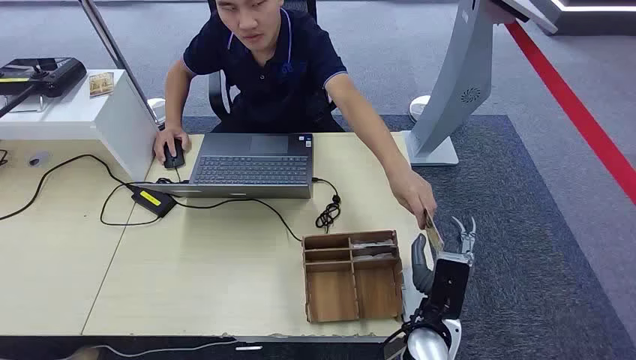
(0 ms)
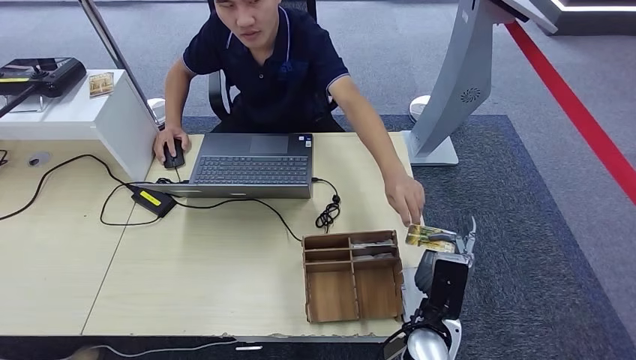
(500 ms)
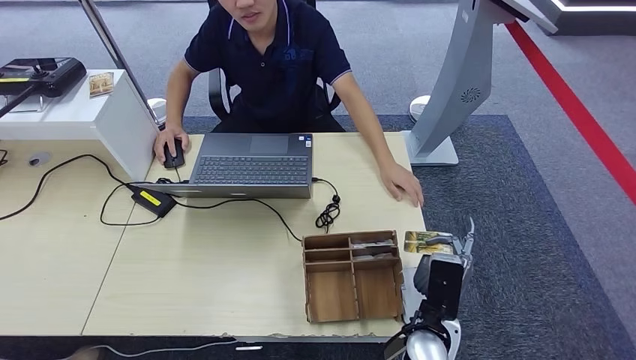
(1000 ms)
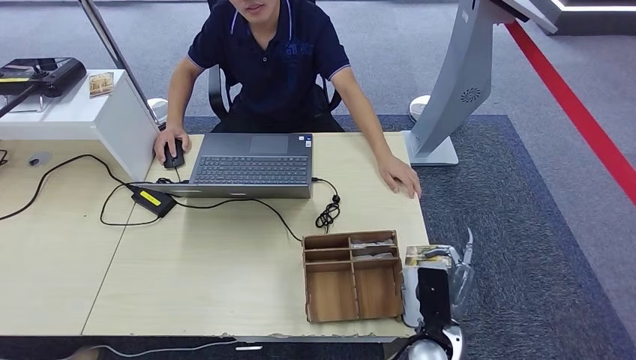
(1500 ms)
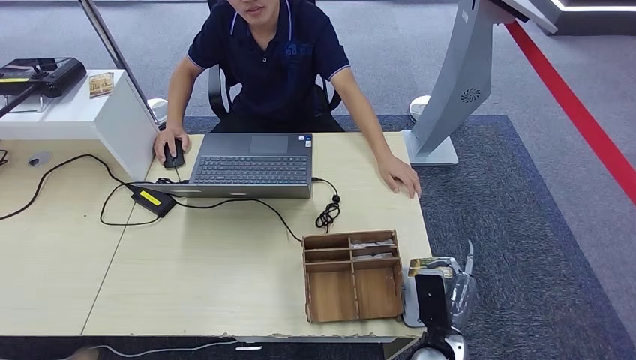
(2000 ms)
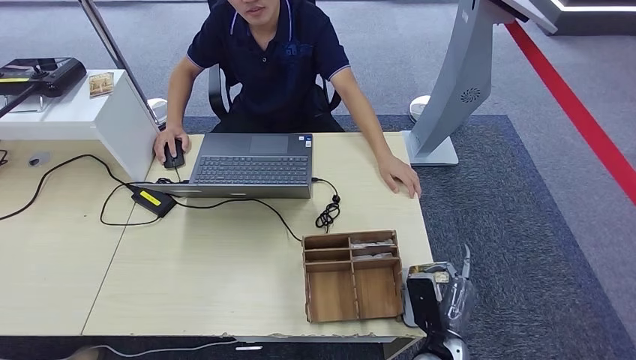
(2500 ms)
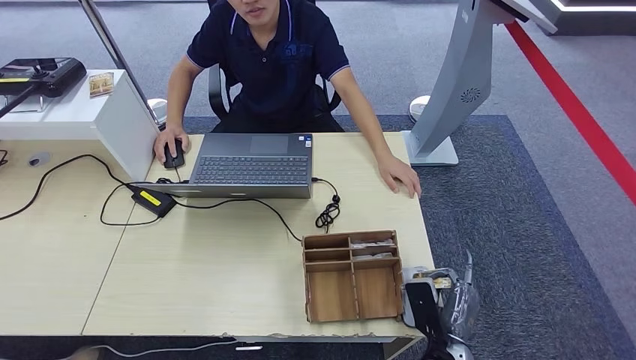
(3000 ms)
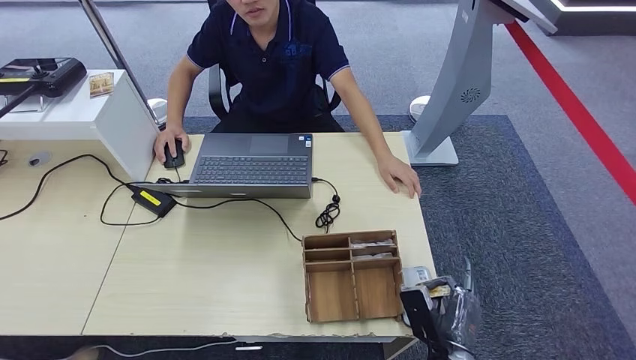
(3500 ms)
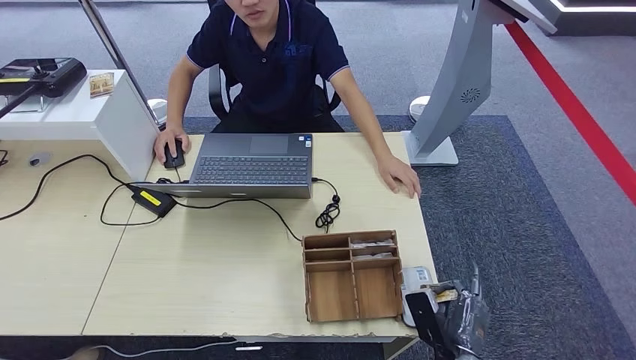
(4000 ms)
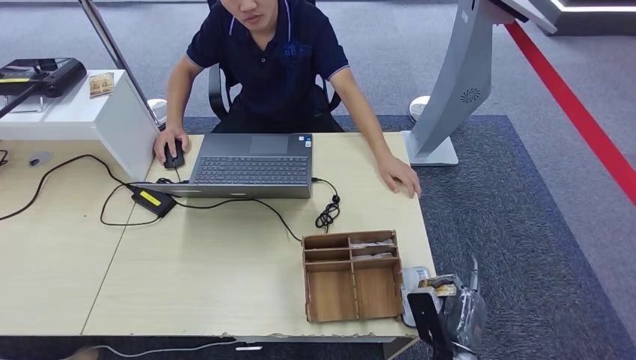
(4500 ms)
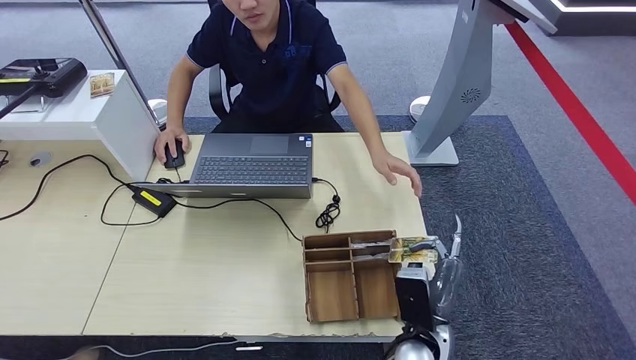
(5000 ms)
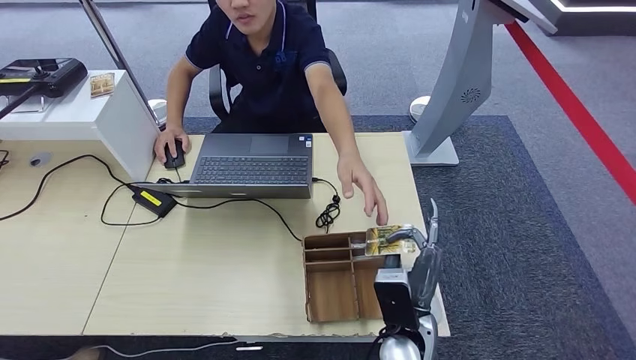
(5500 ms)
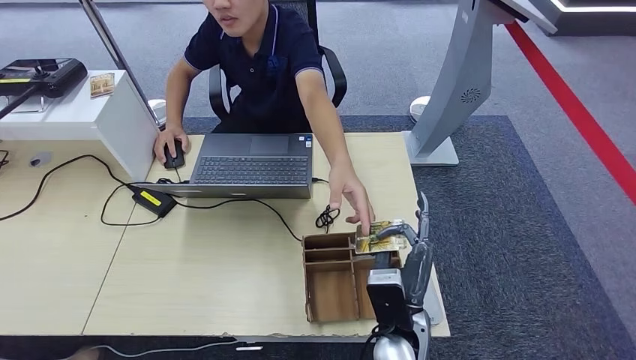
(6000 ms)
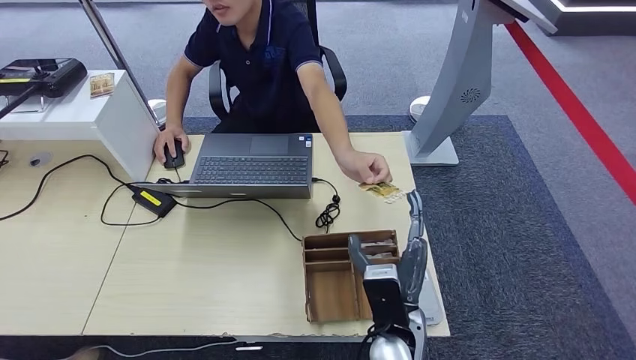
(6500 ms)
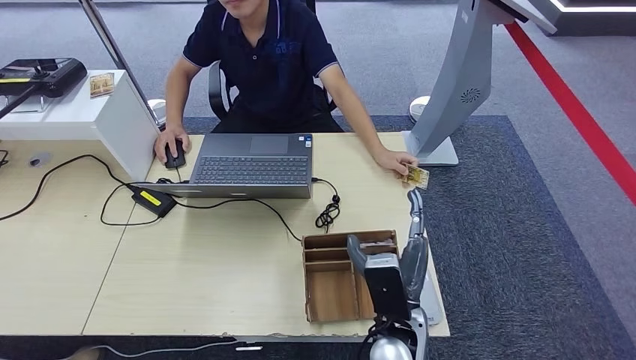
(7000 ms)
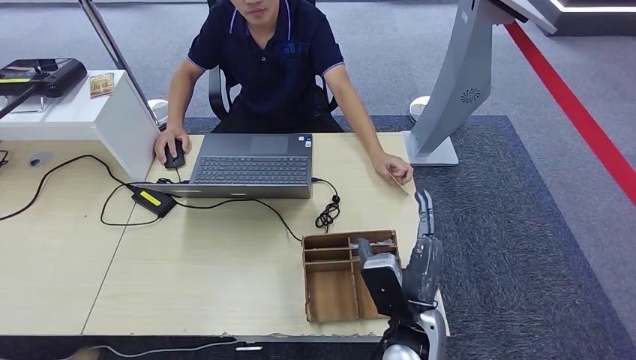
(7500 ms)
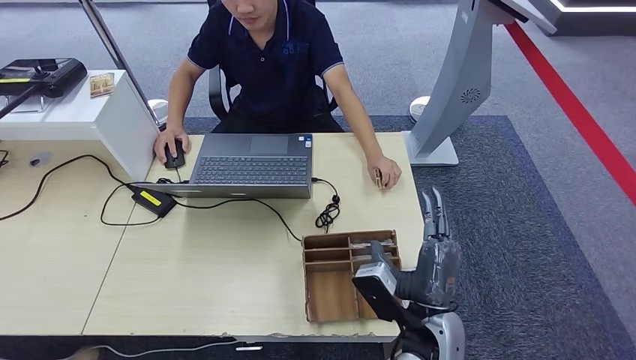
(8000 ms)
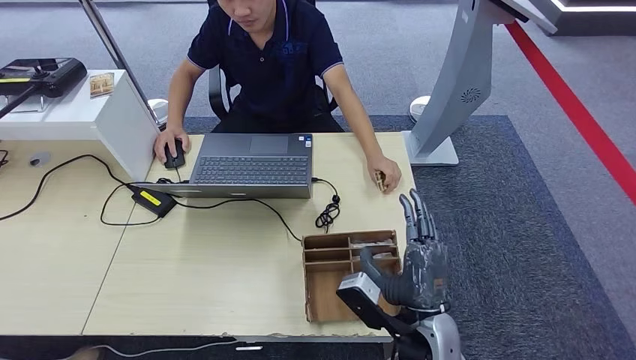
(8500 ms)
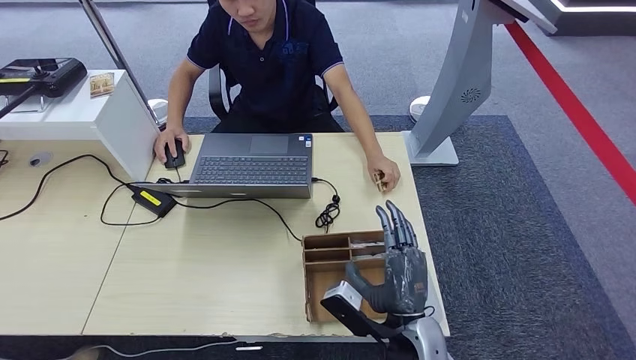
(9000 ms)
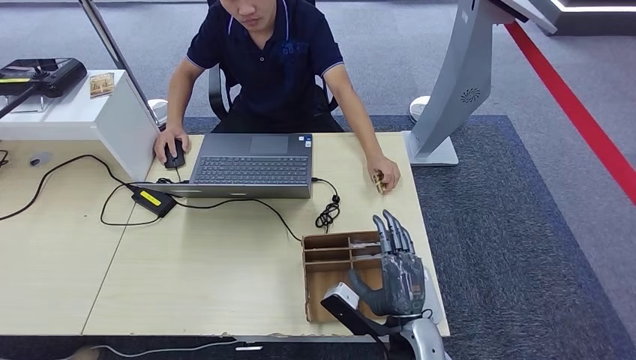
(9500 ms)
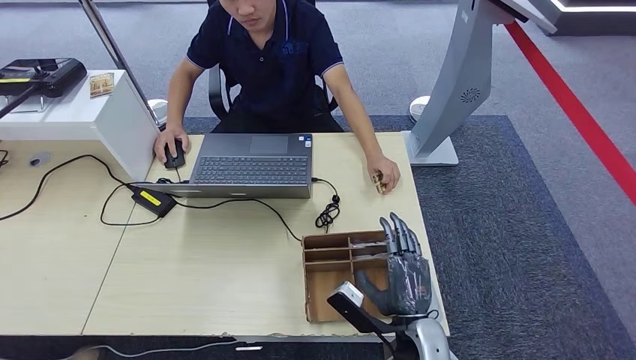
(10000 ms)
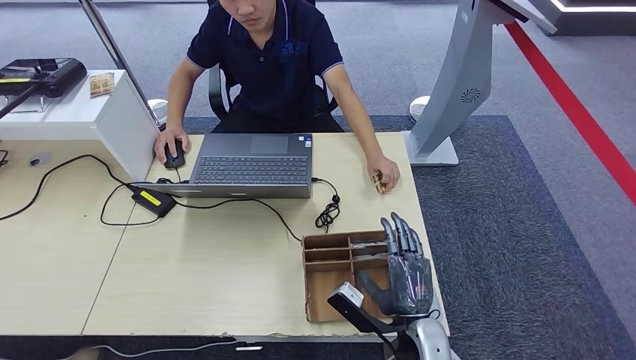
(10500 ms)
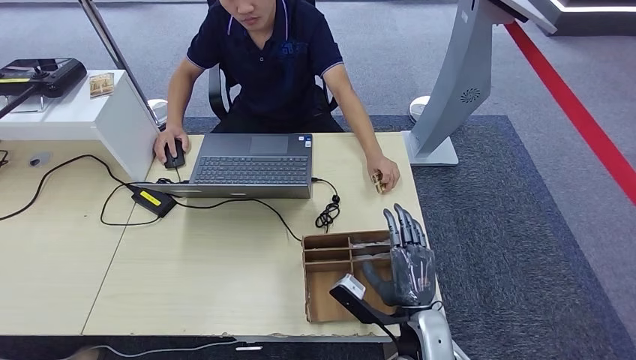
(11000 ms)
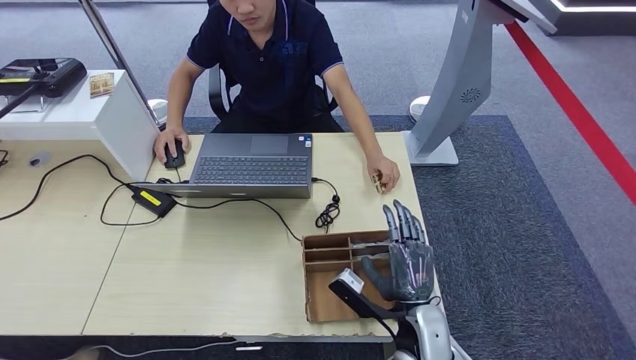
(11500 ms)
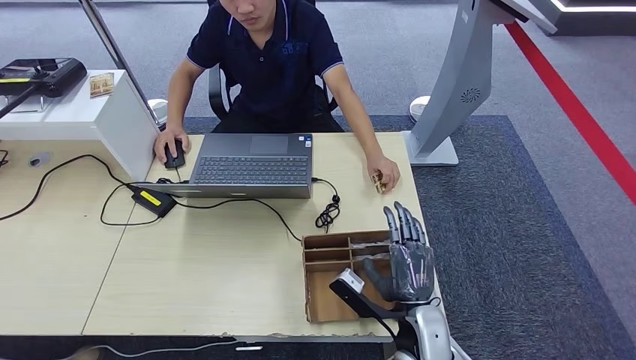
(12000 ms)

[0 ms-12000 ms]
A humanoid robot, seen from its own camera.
Step, 0 ms to 1000 ms: Take the ID card from the person's hand.
Step, 1500 ms to 4500 ms: Place the ID card on the card reader.
Step, 5000 ms to 7500 ms: Hand the ID card to the person.
2000 ms to 4000 ms: The right hand changes place by approximately 5 cm.
4000 ms to 6000 ms: The right hand moves to the left, upward and forward, some 15 cm.
8000 ms to 10000 ms: The right hand goes approximately 5 cm downward.
10000 ms to 12000 ms: There are only small adjustments of the hands.

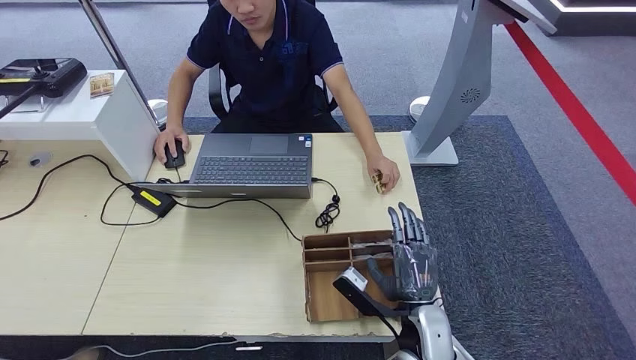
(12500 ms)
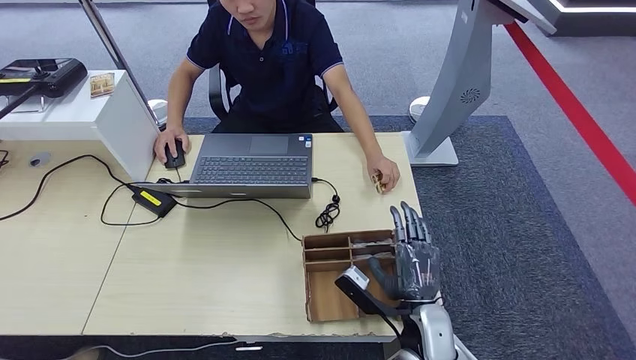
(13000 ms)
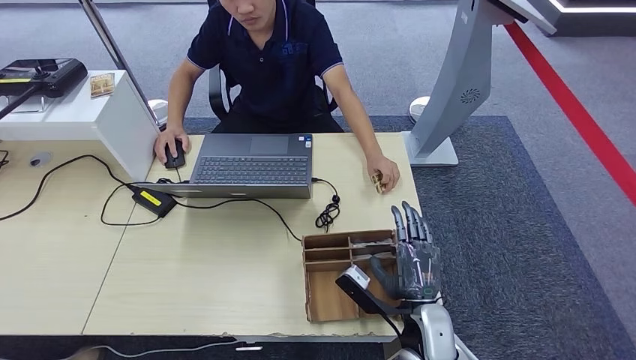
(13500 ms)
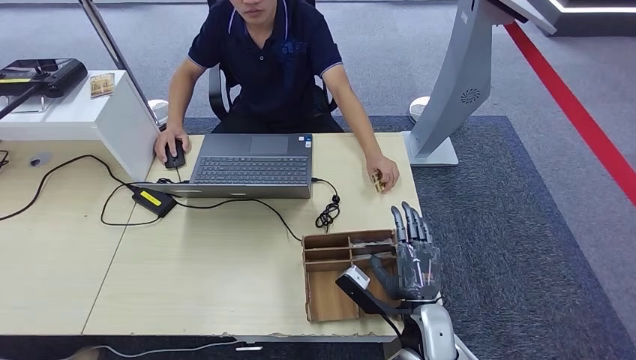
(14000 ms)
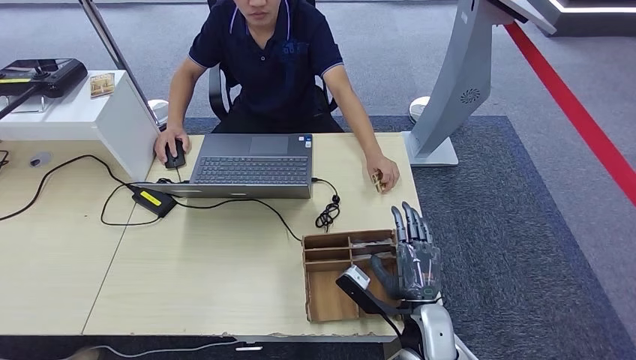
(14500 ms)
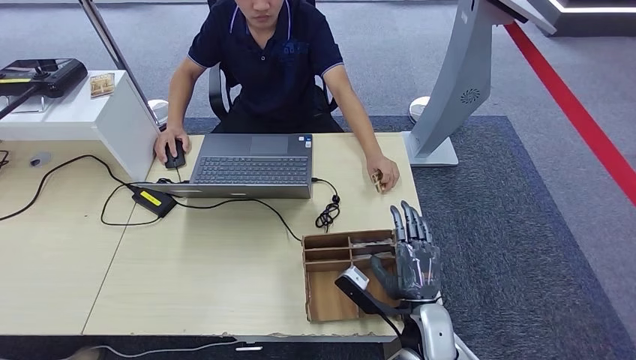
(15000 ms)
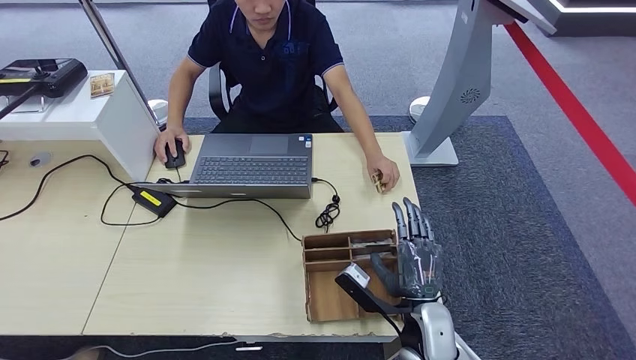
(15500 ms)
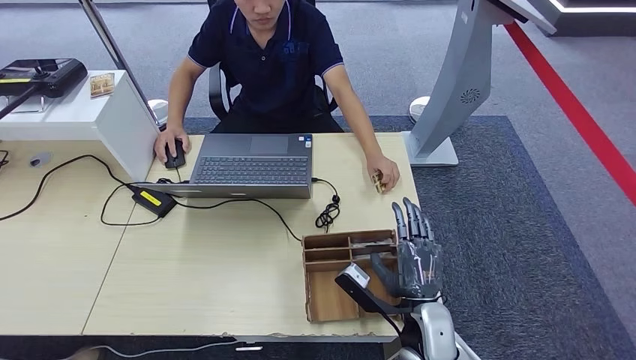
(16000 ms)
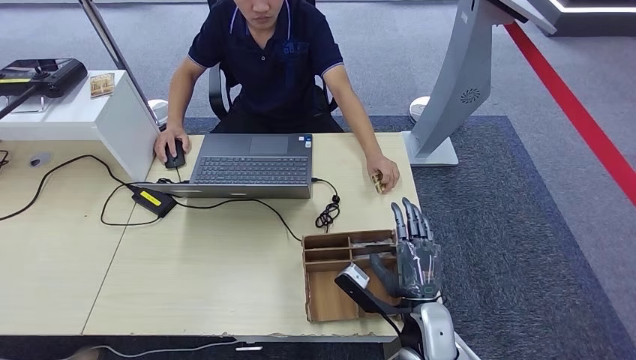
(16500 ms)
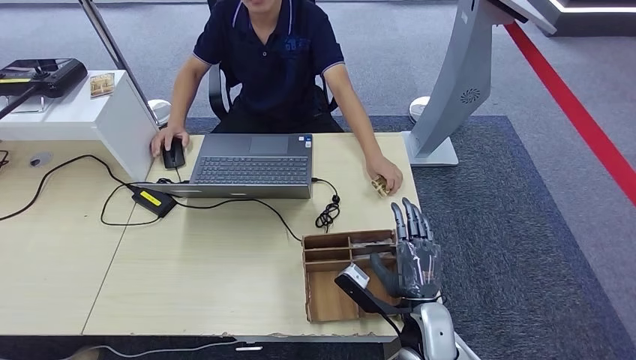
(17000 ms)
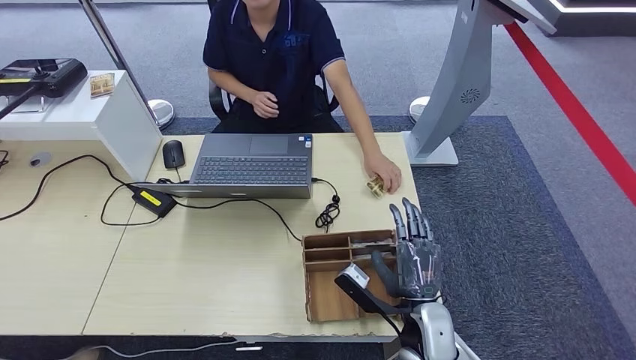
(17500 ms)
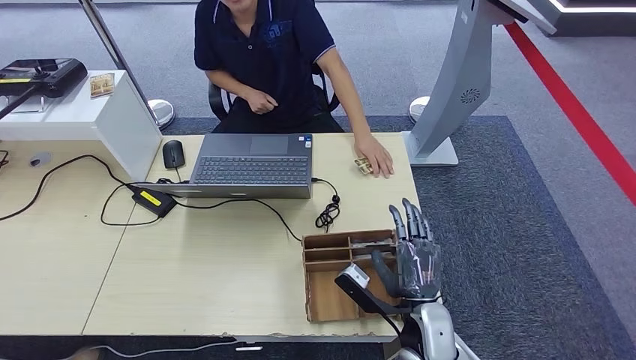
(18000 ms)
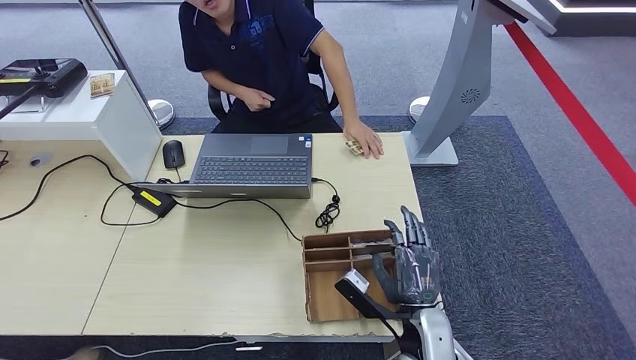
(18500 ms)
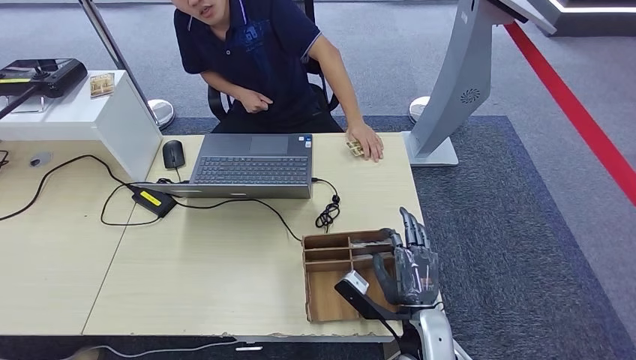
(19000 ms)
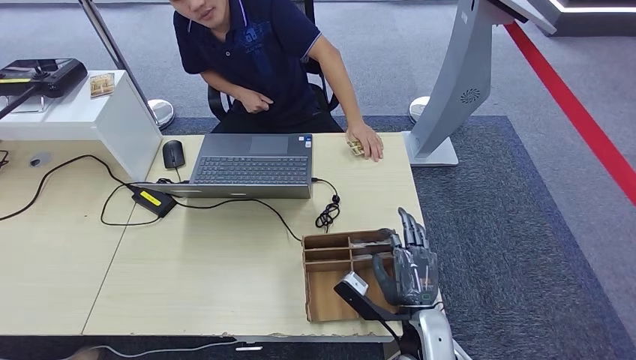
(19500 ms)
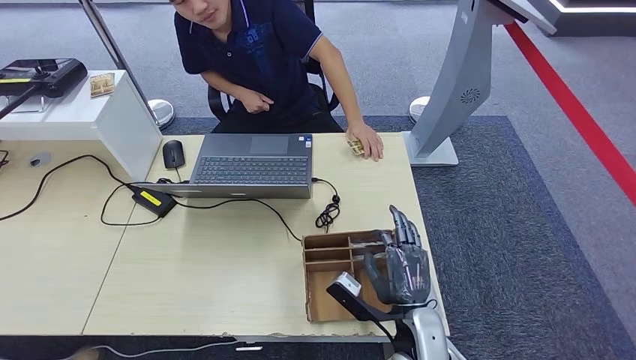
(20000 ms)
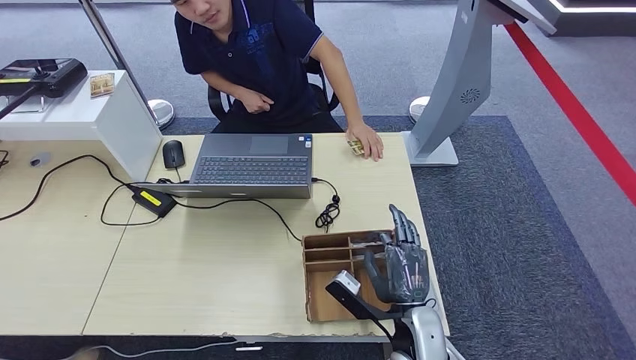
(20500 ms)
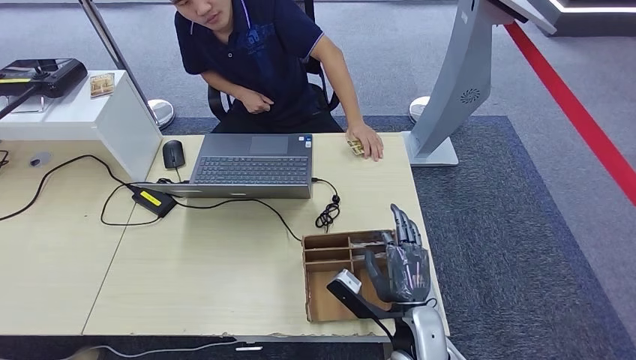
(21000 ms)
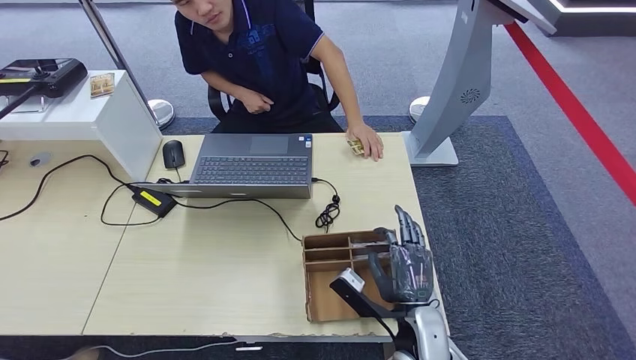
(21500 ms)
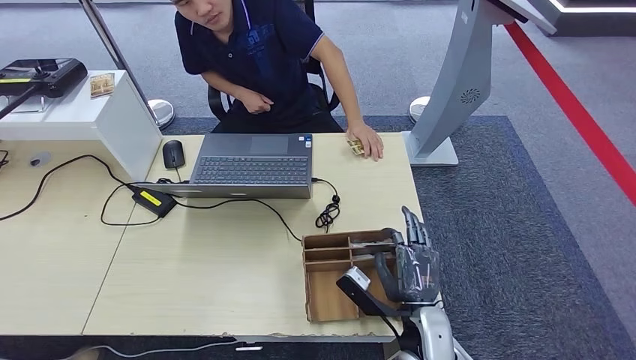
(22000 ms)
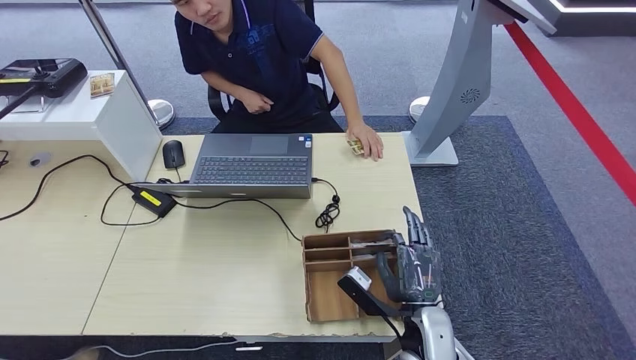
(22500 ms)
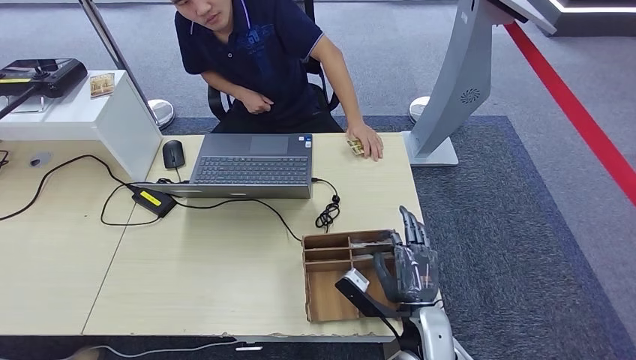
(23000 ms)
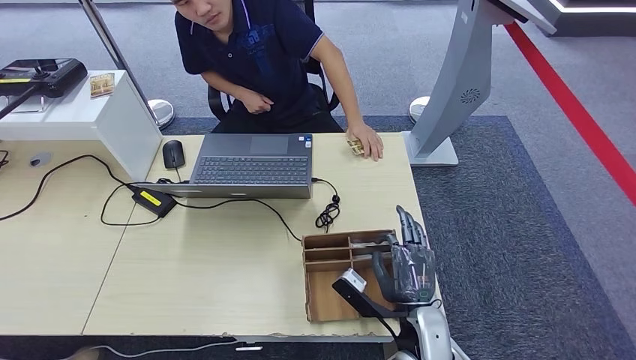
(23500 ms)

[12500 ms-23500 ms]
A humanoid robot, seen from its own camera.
12500 ms to 18000 ms: The two hands keep their place.
18000 ms to 20000 ms: The hands move only a little.
20000 ms to 21500 ms: The two hands keep their place.
21500 ms to 23500 ms: Both hands stay about where they are.
